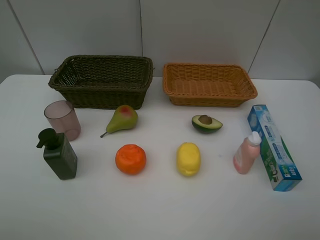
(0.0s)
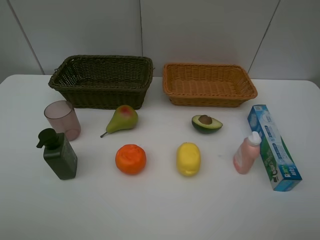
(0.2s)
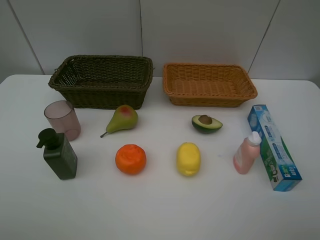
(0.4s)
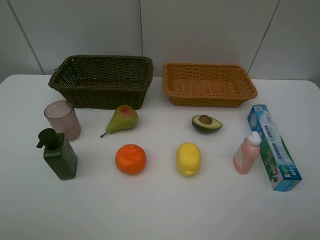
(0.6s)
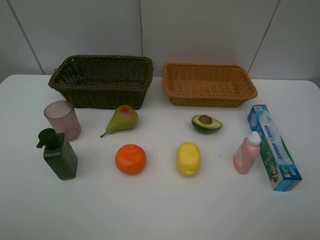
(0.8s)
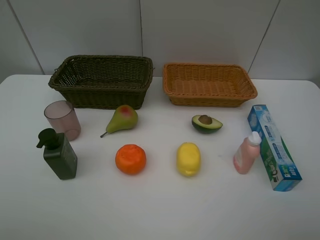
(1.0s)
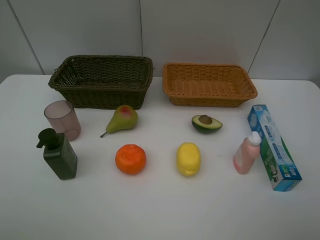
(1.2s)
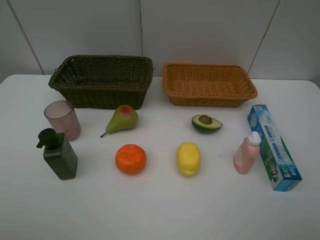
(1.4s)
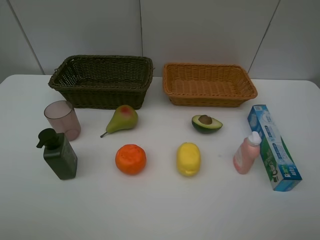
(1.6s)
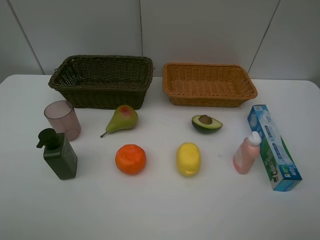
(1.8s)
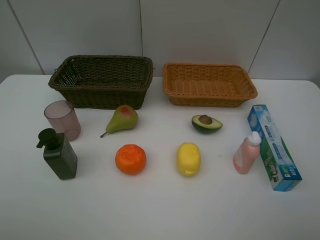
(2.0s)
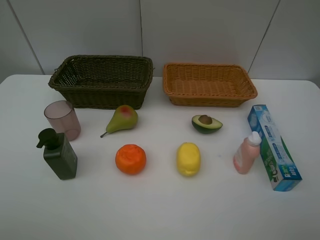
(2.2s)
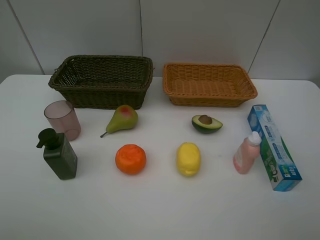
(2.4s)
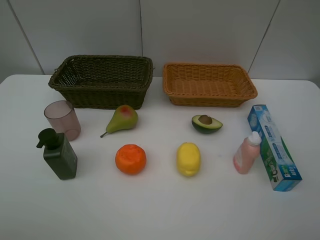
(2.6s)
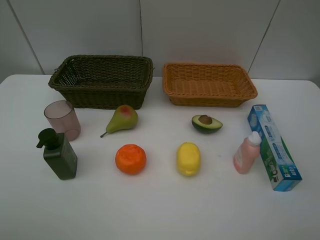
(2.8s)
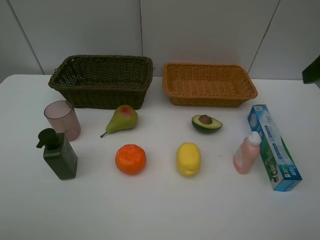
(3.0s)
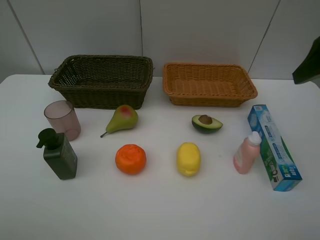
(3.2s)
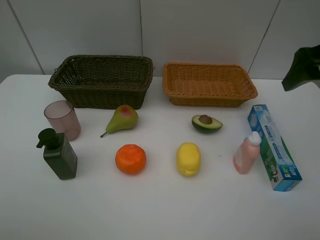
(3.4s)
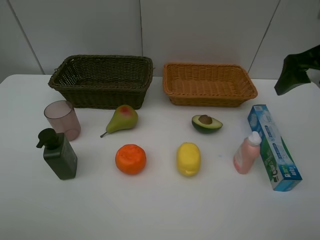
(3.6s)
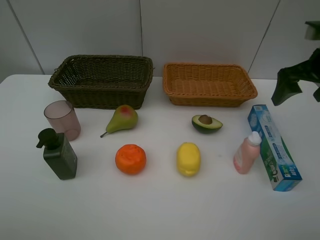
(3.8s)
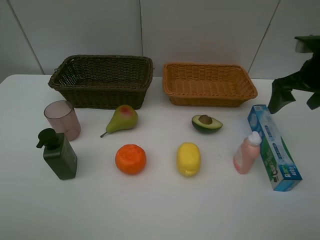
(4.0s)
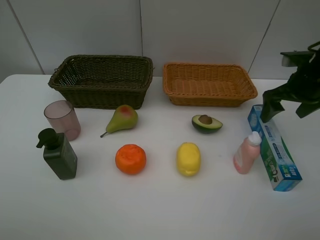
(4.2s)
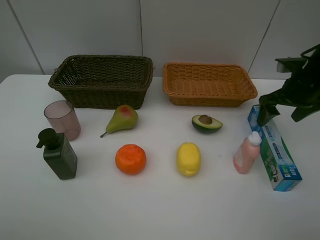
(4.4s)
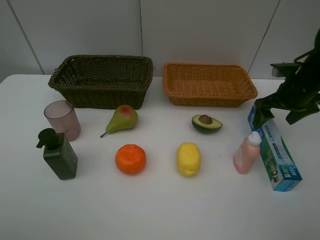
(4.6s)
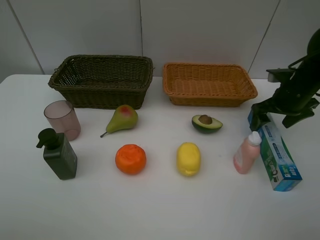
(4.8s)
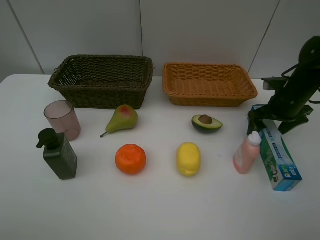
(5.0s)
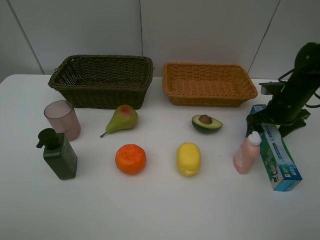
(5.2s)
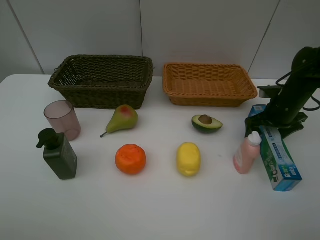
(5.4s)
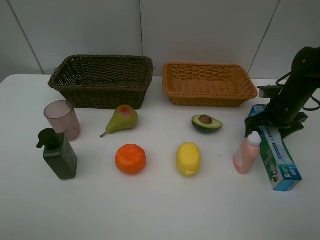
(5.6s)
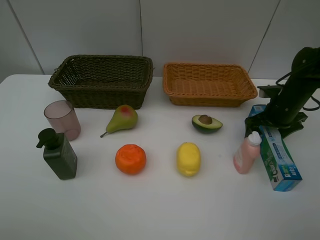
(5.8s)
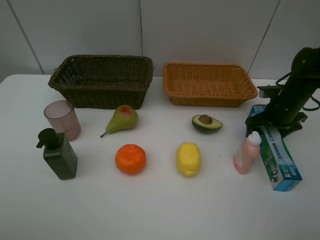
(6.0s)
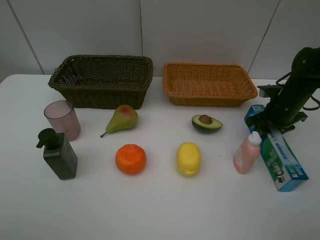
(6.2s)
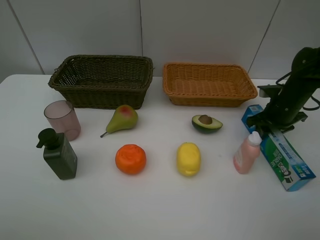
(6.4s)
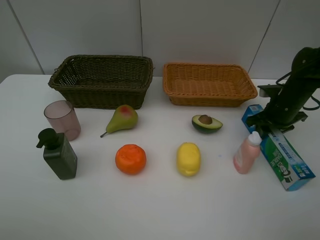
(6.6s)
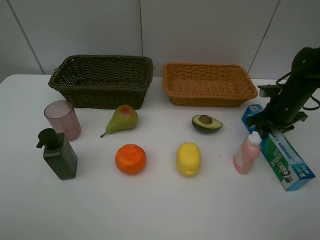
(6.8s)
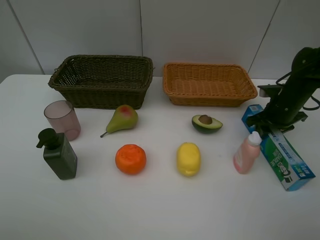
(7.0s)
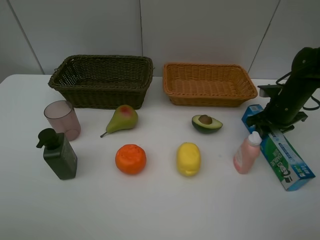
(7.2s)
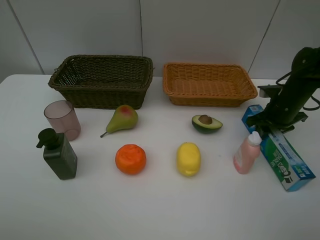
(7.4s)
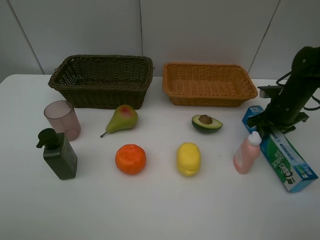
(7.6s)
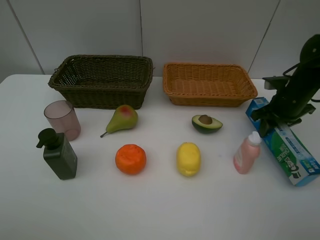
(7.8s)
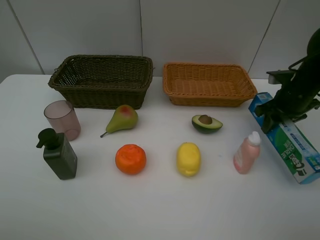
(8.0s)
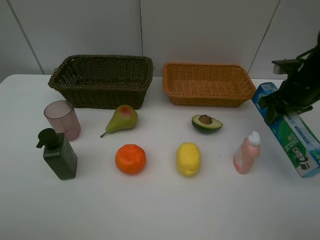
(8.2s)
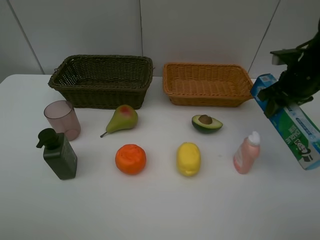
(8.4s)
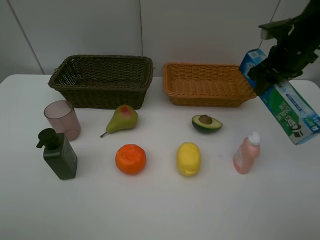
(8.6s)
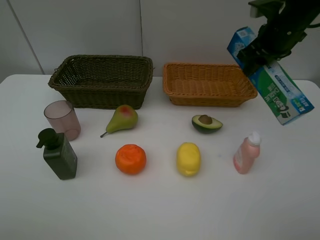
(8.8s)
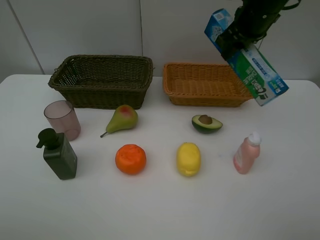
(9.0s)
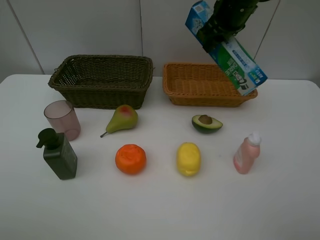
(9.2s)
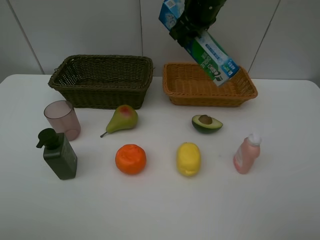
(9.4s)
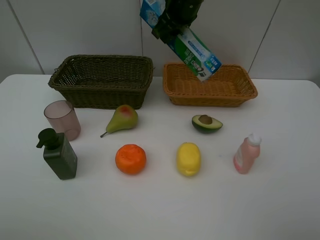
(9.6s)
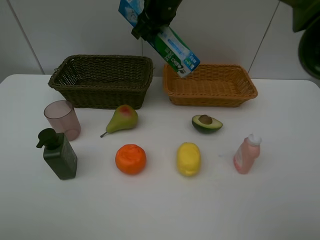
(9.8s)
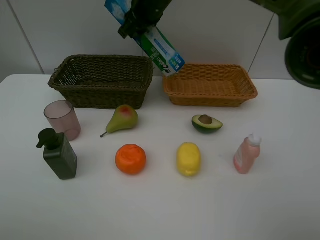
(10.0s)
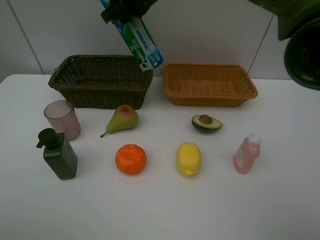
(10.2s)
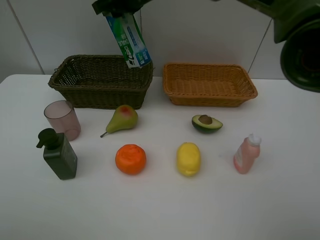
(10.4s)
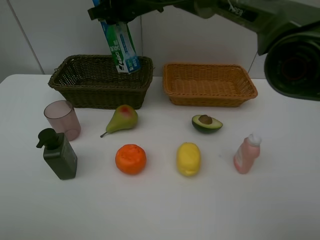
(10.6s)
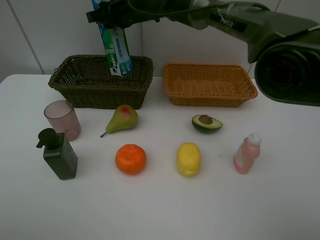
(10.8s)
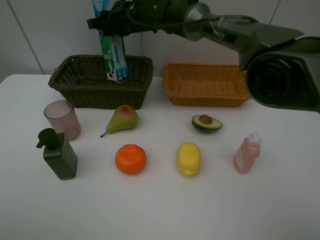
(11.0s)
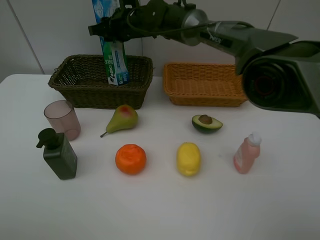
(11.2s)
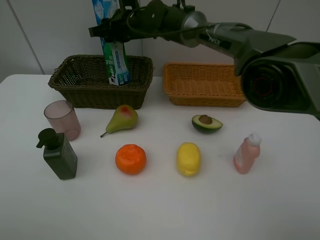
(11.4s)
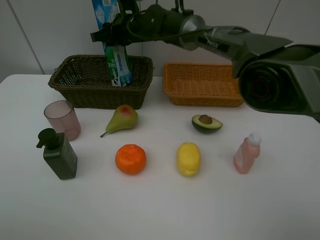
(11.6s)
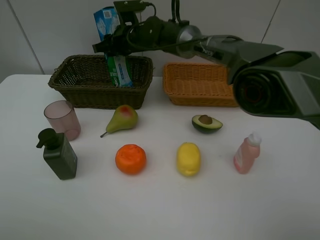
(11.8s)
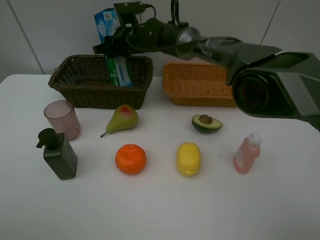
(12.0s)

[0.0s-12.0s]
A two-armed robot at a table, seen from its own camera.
Task of the whole recording: Place multiple objects separately in different baskets.
Step, 0.0s to 7.8s: Pick up toothpaste with right gripper.
0.0s to 1.6s: Both grippers stay put.
3.0s to 4.4s: The right gripper heads downward and forward, covering approximately 20 cm.
4.4s to 6.0s: The right gripper is displaced downward by roughly 10 cm.
6.0s to 7.6s: The right gripper closes its fingers.
7.6s to 9.0s: The right gripper moves upward and to the left, some 20 cm.
9.0s to 10.4s: The right gripper heads to the left, covering approximately 20 cm.
10.4s to 12.0s: The right gripper moves downward, about 10 cm.

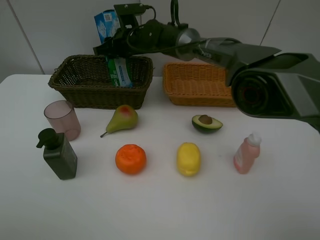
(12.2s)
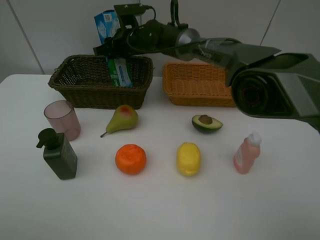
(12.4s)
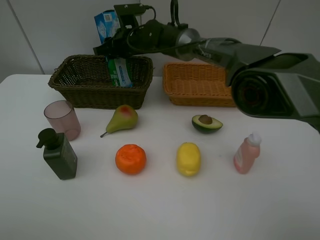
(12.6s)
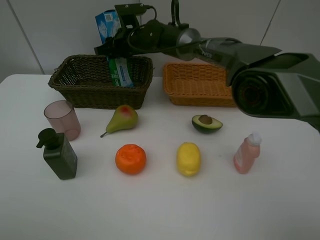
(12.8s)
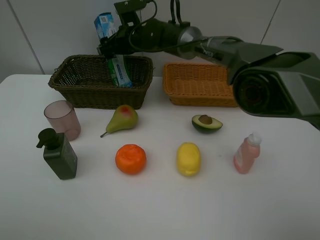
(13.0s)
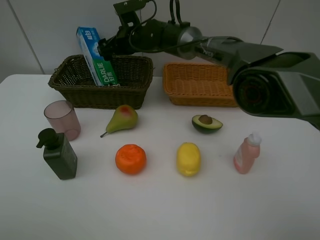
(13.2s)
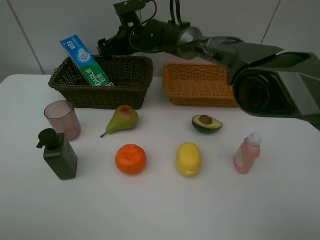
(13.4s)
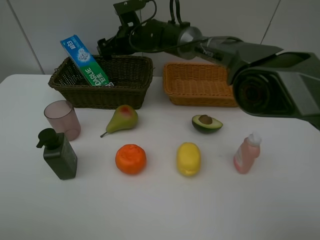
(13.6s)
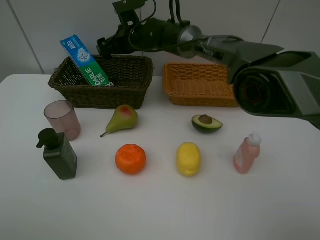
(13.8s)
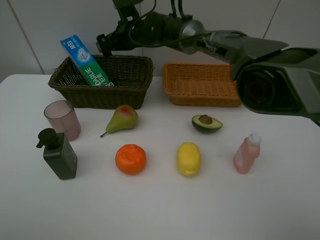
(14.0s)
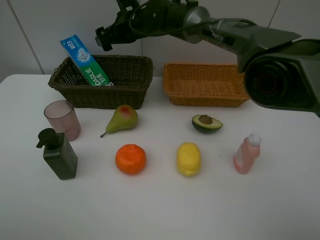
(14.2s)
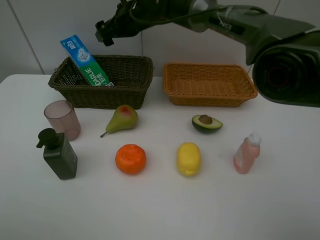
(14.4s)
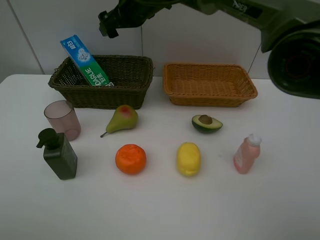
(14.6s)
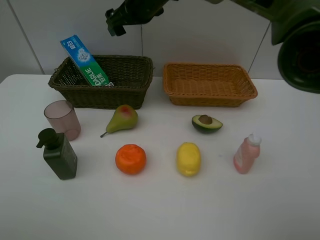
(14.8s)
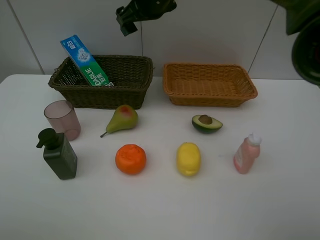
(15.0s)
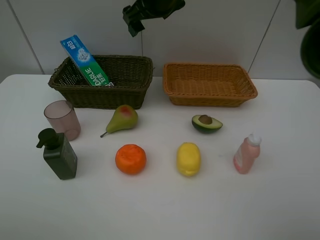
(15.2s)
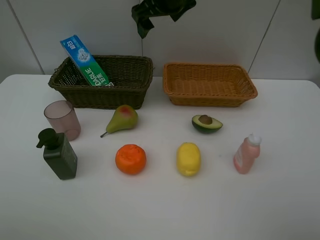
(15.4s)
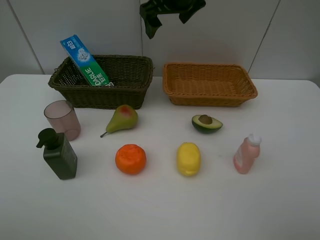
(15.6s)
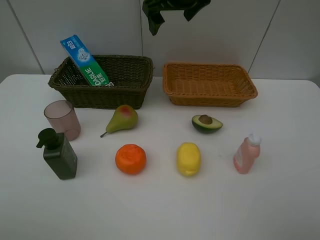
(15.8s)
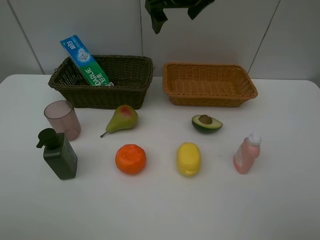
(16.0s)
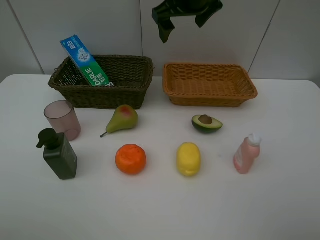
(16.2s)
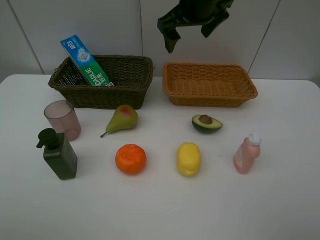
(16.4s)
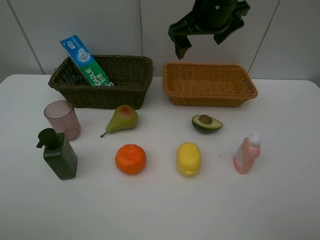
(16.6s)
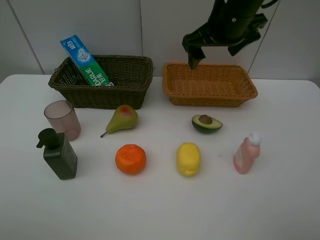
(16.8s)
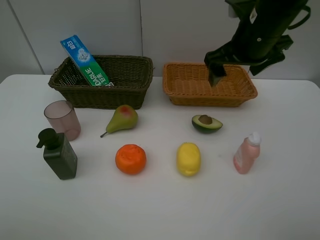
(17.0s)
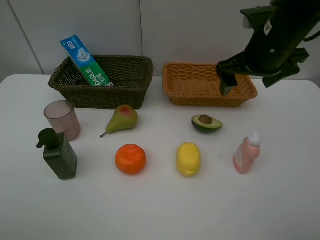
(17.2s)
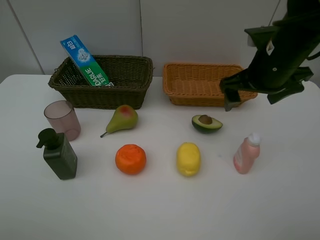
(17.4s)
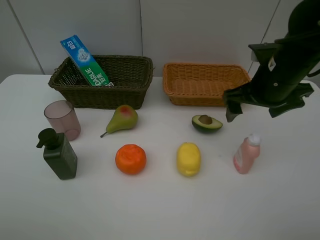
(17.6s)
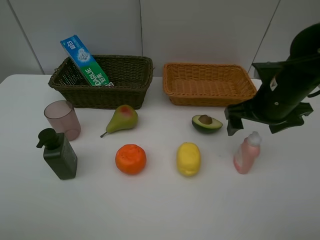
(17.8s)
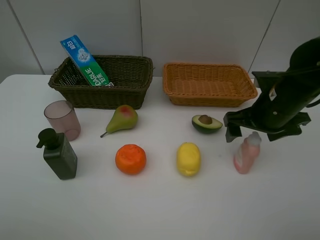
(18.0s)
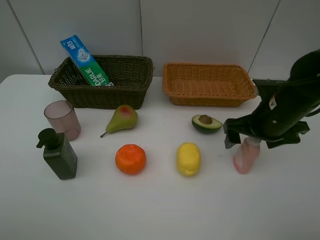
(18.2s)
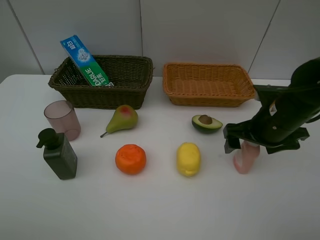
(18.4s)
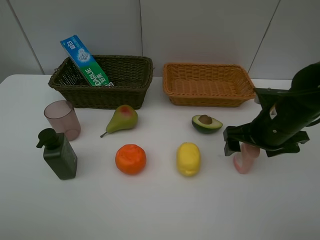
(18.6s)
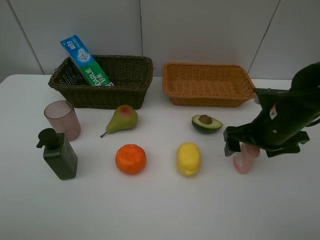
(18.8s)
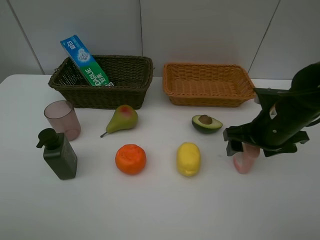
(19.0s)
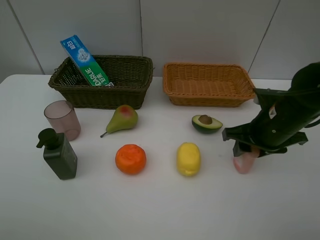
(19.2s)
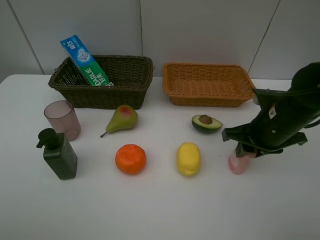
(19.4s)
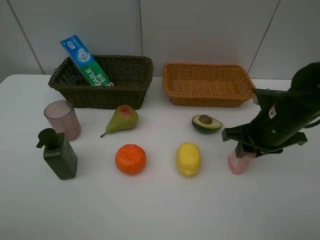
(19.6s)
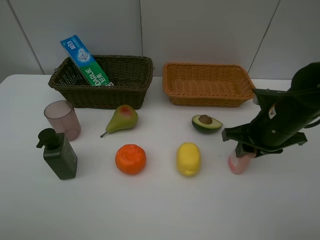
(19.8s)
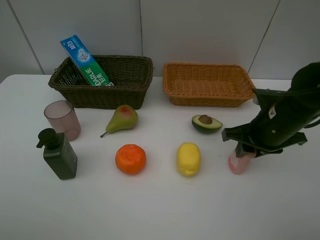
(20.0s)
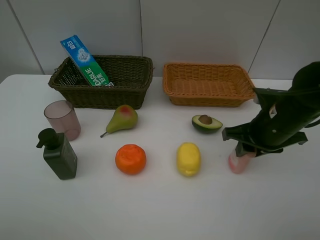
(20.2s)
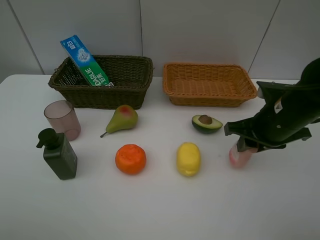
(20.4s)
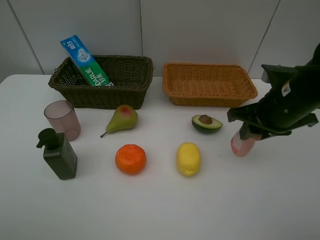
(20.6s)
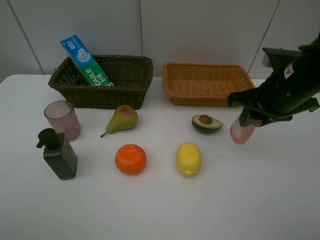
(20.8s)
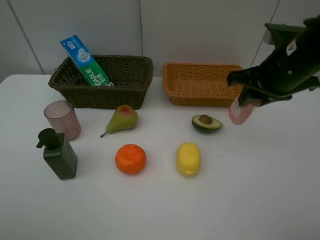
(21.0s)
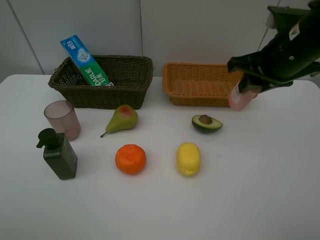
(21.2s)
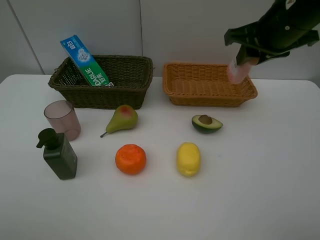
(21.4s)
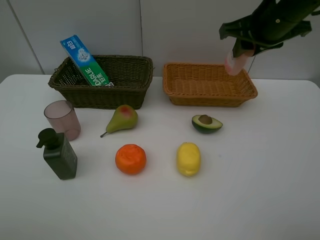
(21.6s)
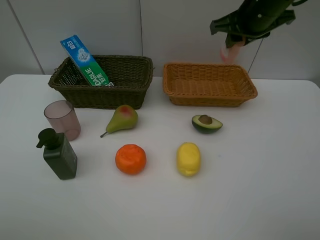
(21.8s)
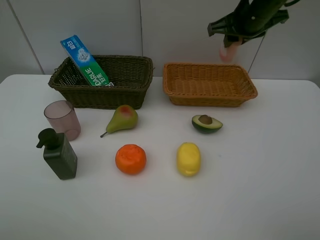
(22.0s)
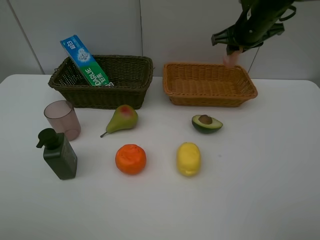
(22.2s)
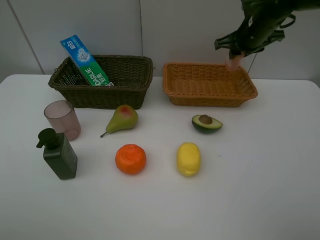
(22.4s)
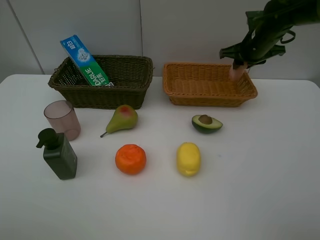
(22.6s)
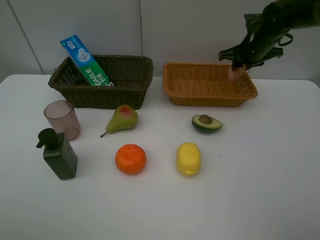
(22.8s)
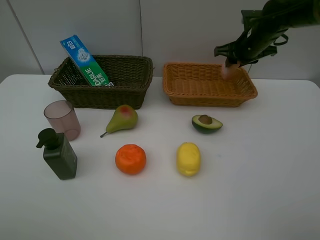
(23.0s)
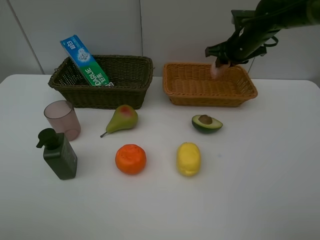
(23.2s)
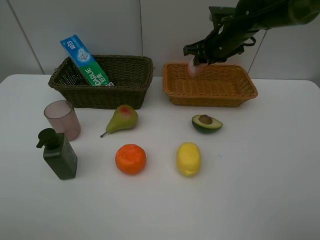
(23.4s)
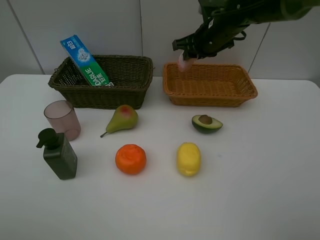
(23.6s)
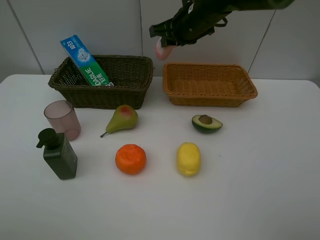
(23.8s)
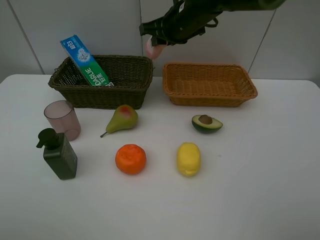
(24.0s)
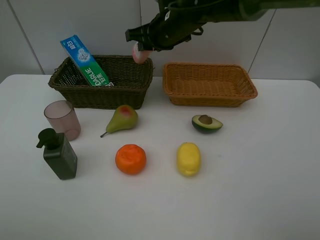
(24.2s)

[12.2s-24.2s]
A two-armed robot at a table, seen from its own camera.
Task of the whole recording: Place multiple objects separately in different baskets.
Step, 13.8s to 20.4s: Pick up the laundry detergent with right gripper.
12.2s to 13.8s: The right gripper opens its fingers.
13.8s to 15.2s: The right gripper is displaced upward, to the right and backward by about 15 cm.
15.2s to 16.6s: The right gripper is displaced to the right and backward by approximately 10 cm.
16.6s to 18.2s: The right gripper heads downward, to the right and backward, covering roughly 20 cm.
18.2s to 19.8s: The right gripper closes.
19.8s to 21.2s: The right gripper shifts about 15 cm upward.
21.2s to 22.6s: The right gripper travels forward and downward by some 20 cm.
22.6s to 24.2s: The right gripper moves to the left, some 20 cm.
